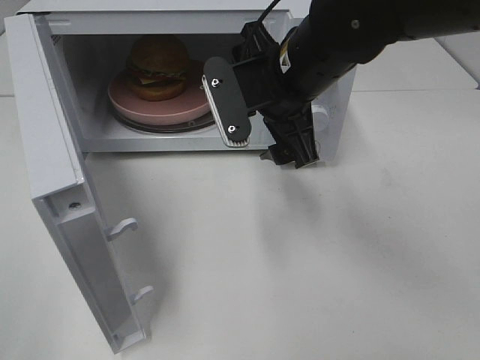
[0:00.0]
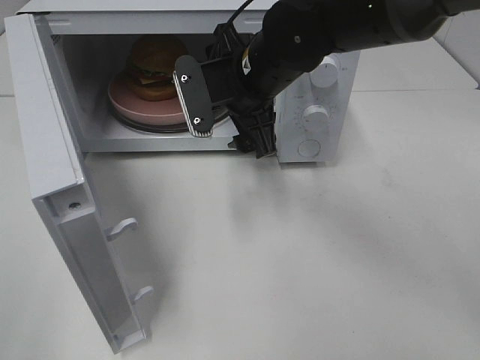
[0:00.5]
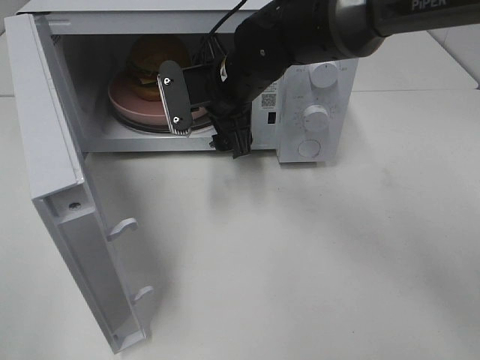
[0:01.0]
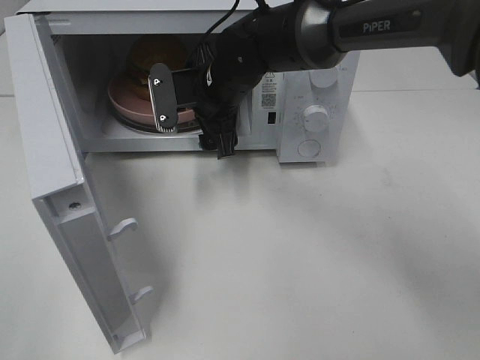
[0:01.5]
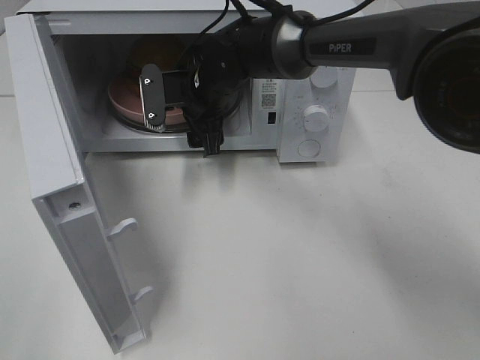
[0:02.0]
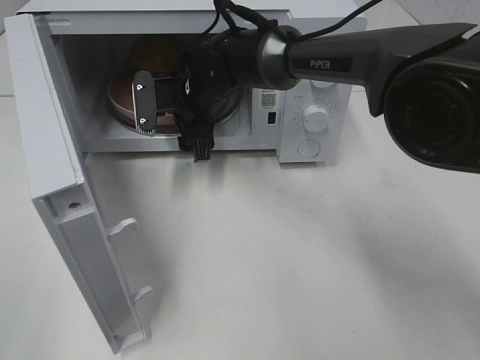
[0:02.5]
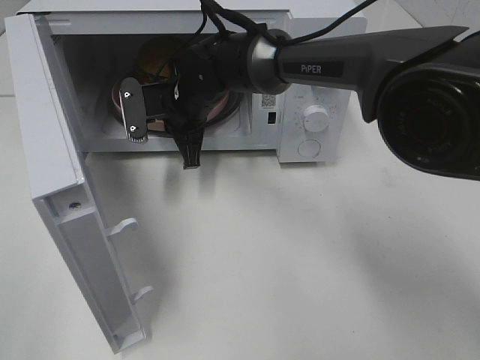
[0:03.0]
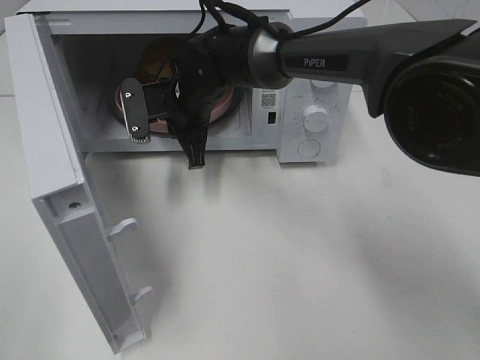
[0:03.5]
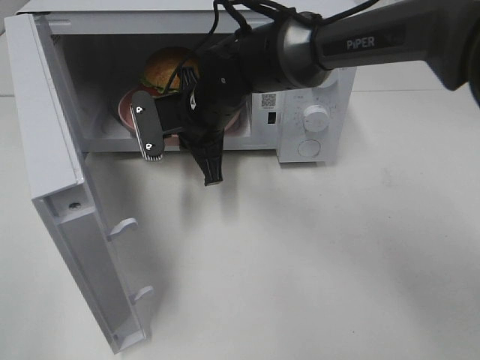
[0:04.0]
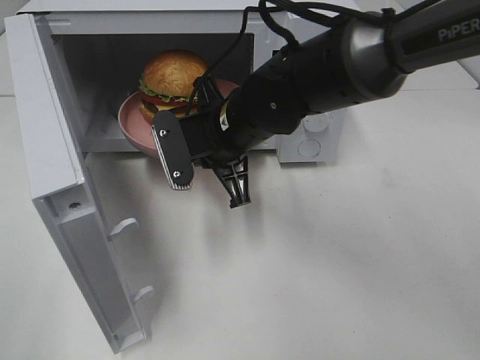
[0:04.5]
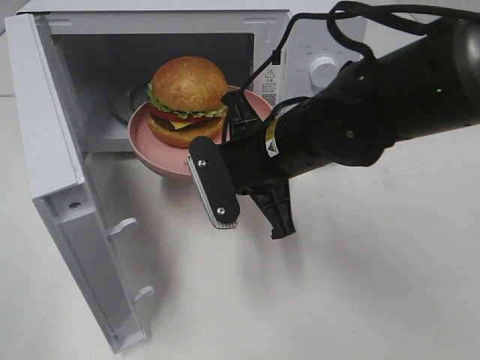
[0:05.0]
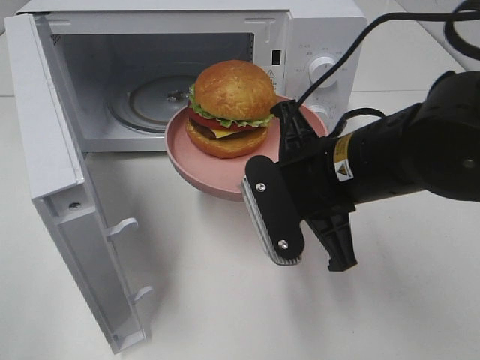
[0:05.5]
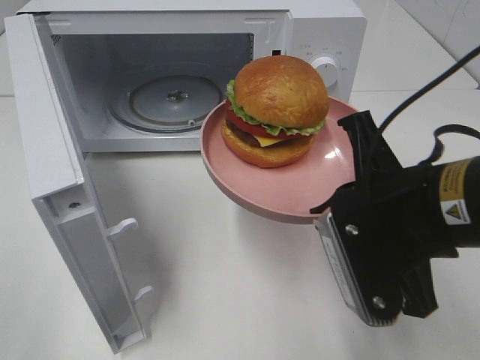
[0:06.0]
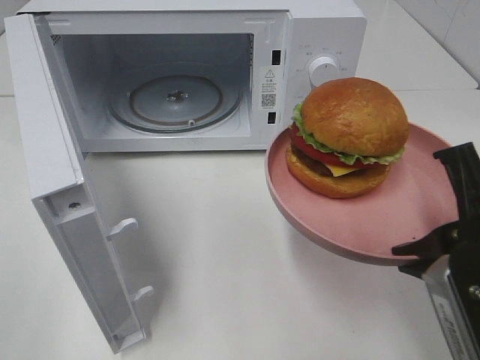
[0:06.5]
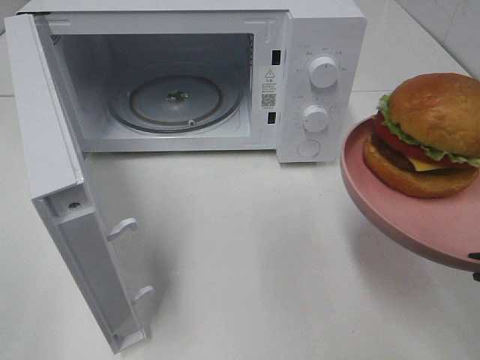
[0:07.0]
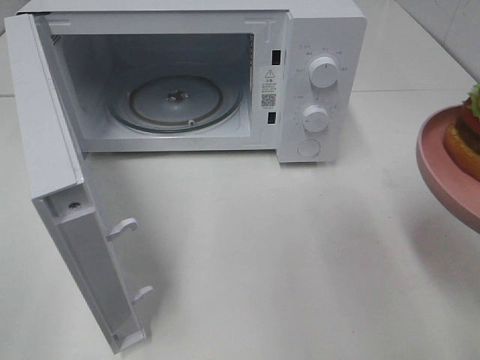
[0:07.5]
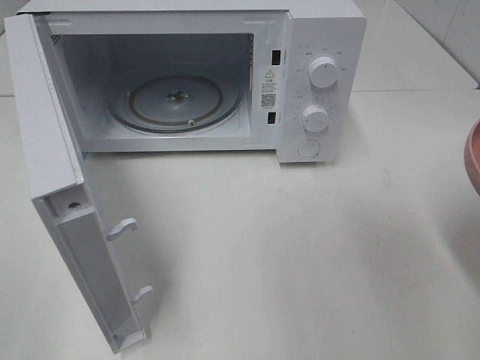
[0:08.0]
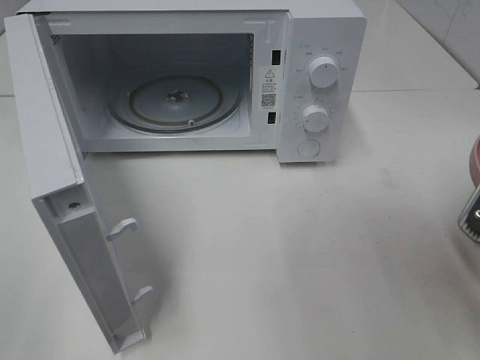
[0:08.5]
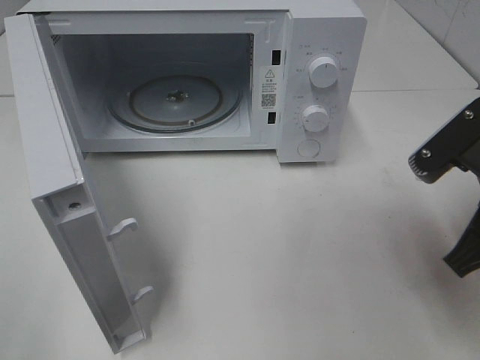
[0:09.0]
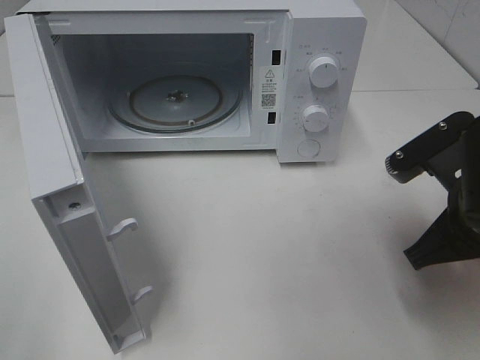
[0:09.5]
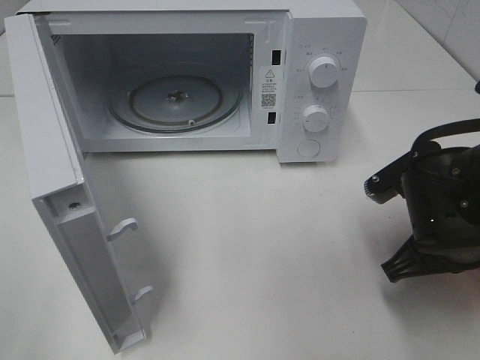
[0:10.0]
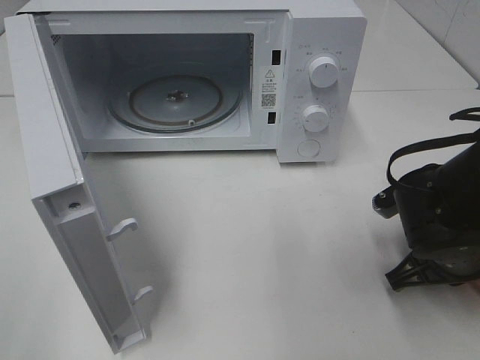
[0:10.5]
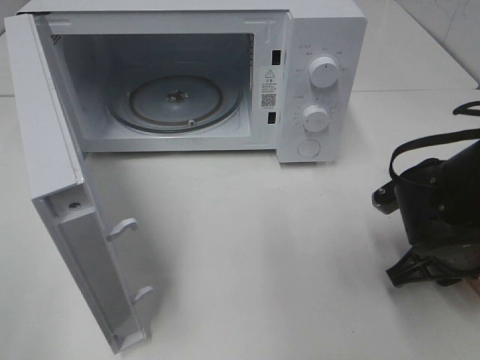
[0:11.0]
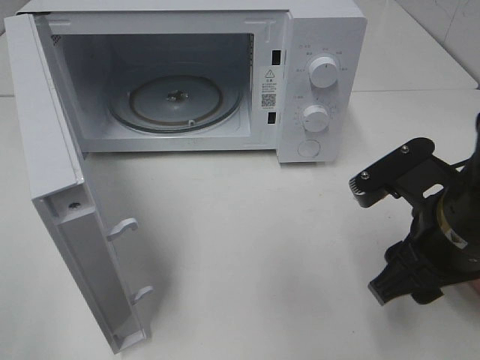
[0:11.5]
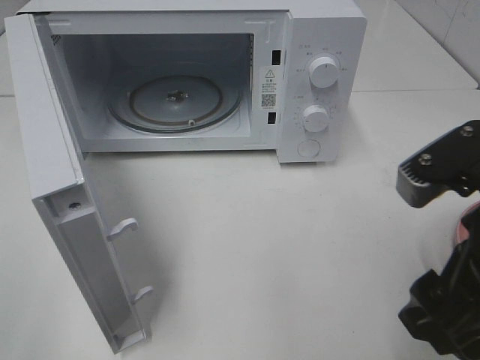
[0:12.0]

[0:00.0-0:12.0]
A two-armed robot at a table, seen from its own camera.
Task of the whole recording: Heat the burger.
Step, 0:00.0 to 0:03.0: Right hand: grab the plate with the hamburger.
Step, 0:03.5 to 0:11.0: Right hand: place the plate on the table.
0:00.0 to 0:02.0: The right gripper travels forward, to the left and downward by about 15 cm.
0:02.0 to 0:04.0: The right gripper goes about 5 cm backward, and closes its fingers.
0:04.0 to 0:06.0: The right gripper shifts approximately 30 cm backward and to the right.
0:06.0 to 0:08.0: The right gripper shifts approximately 15 cm to the right and backward.
0:08.0 to 0:10.0: The right gripper is displaced forward, downward and to the left by roughly 15 cm.
0:10.0 to 0:12.0: The right gripper heads upward and backward, covering approximately 15 cm, and opens up.

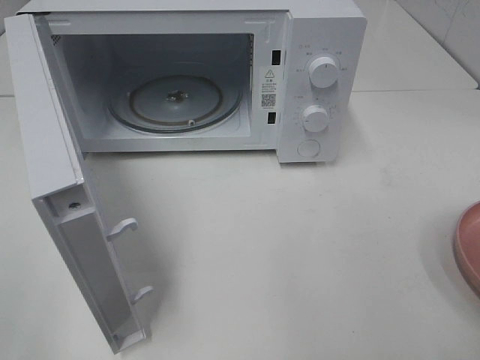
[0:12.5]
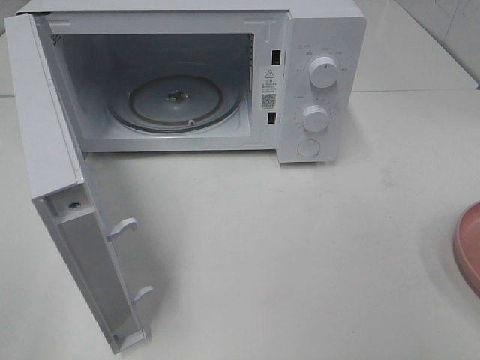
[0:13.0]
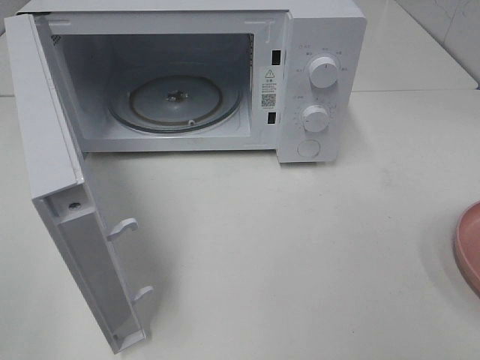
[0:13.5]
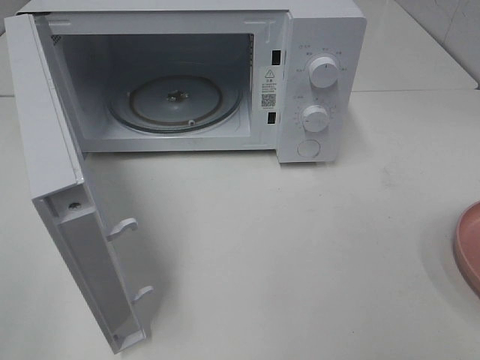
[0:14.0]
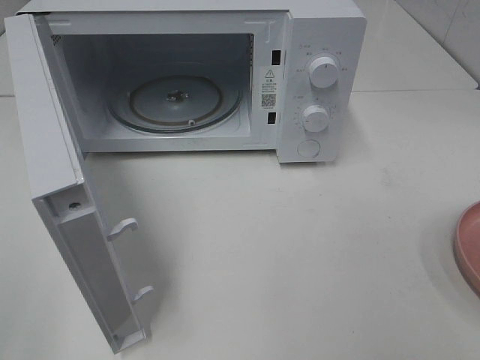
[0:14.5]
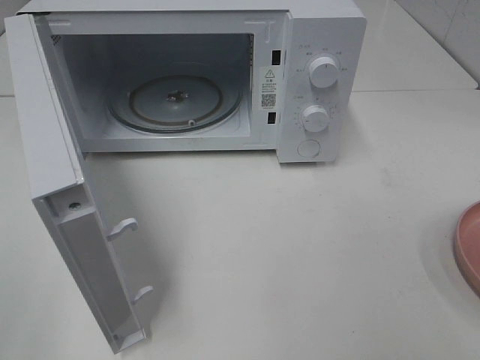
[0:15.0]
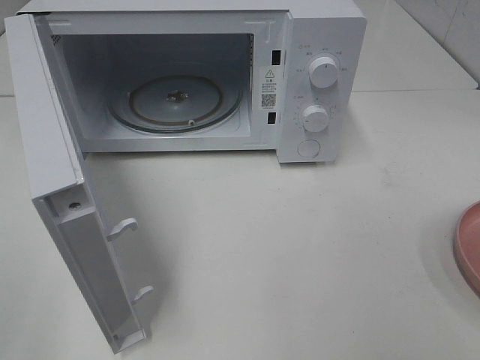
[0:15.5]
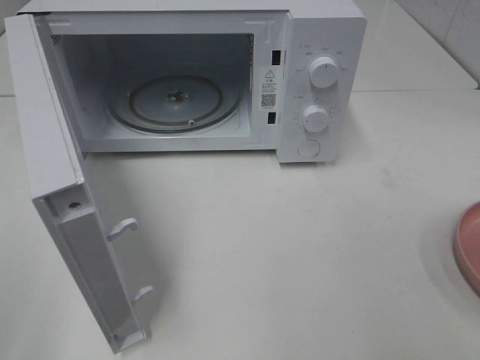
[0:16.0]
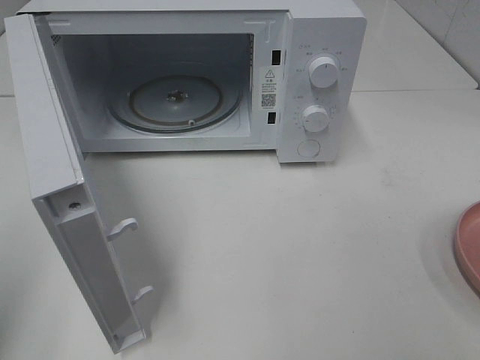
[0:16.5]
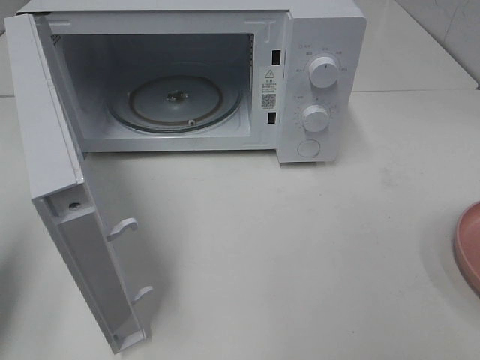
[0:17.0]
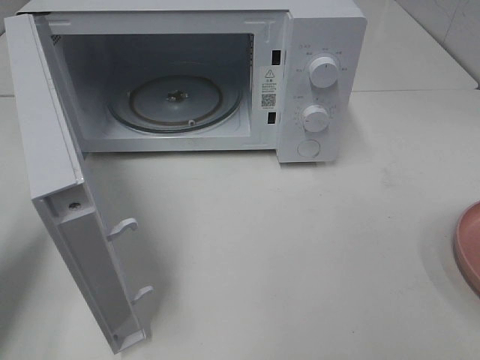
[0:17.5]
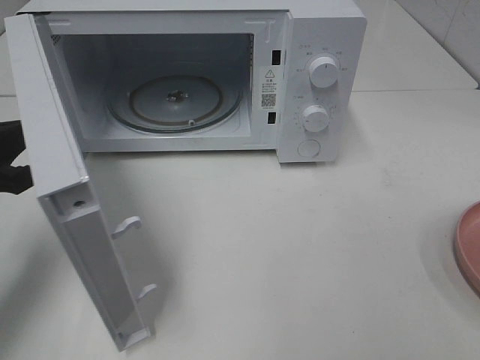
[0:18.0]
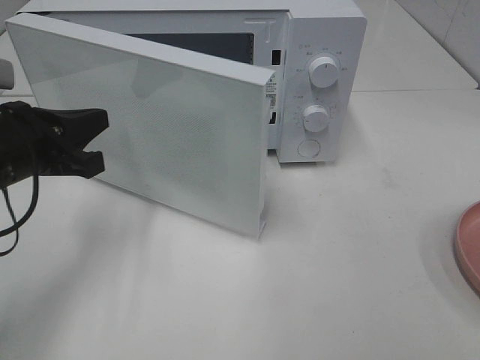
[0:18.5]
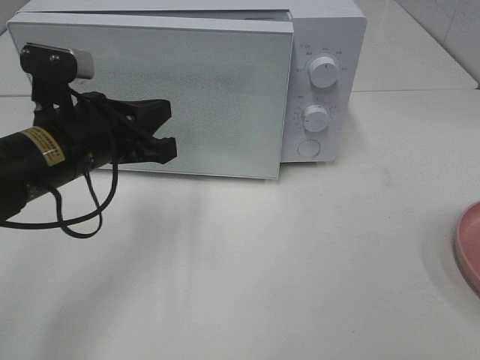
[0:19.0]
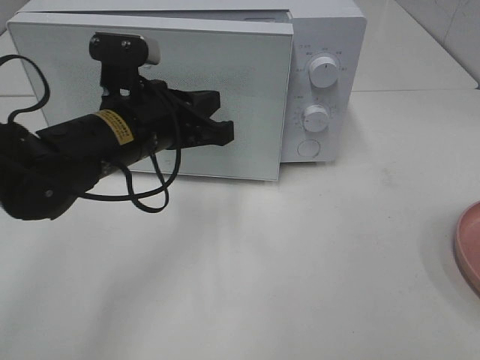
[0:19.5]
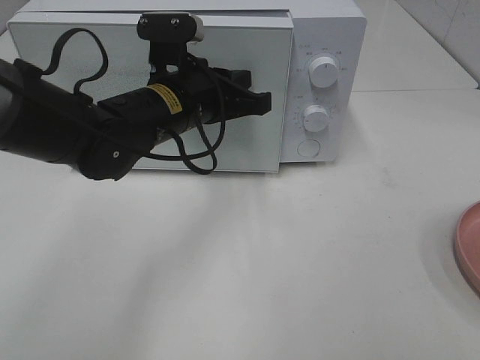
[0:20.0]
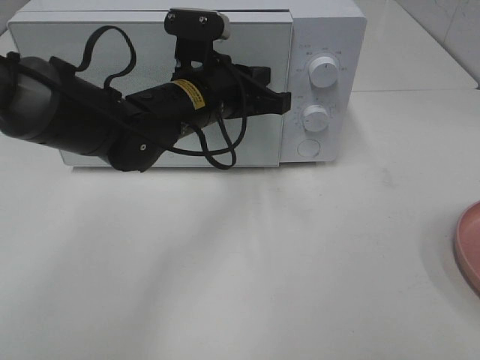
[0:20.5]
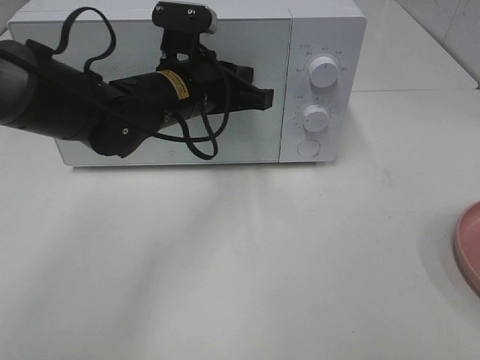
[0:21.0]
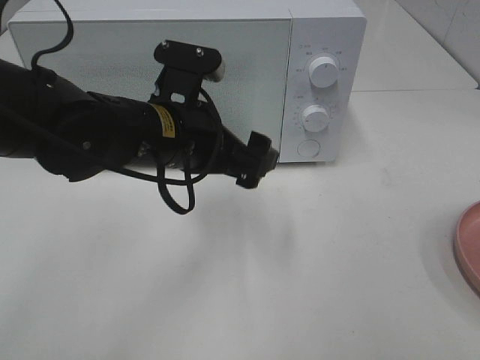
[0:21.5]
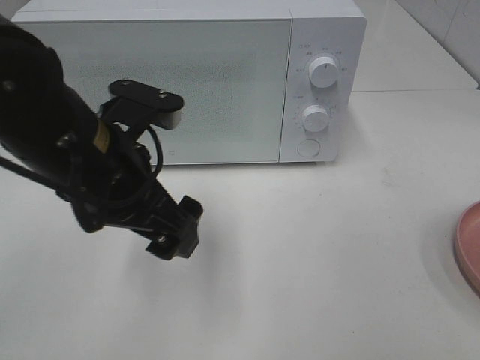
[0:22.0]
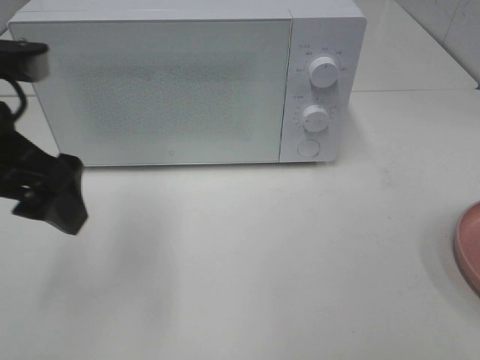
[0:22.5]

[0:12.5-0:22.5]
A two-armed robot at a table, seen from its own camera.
Task of the whole recording: Heat the burger.
Step, 0:12.5 to 0:21.0: Left hand: close the microwave door.
0:16.5 to 0:18.5: The left gripper heads forward, downward and to the right, covering some 25 cm.
0:18.5 to 0:20.5: The left gripper heads to the right and forward, covering some 20 cm.
0:20.5 to 0:22.5: The left gripper travels to the left, backward and upward by approximately 25 cm, and opens.

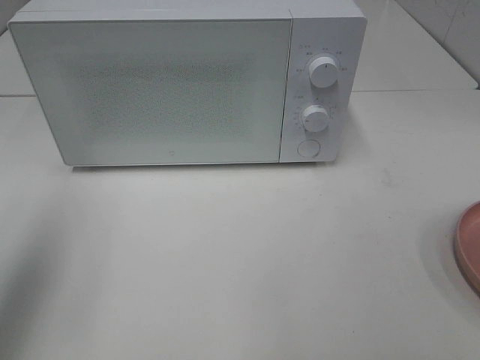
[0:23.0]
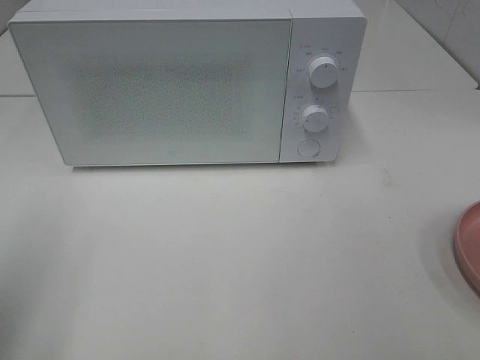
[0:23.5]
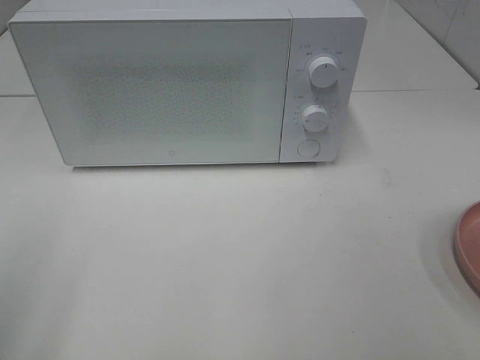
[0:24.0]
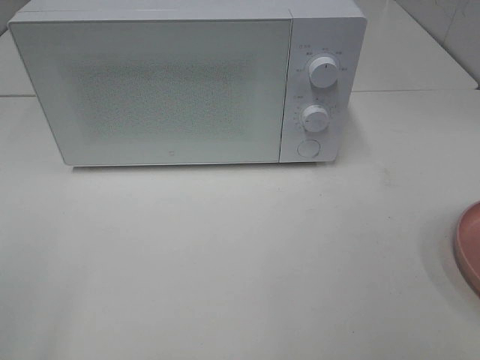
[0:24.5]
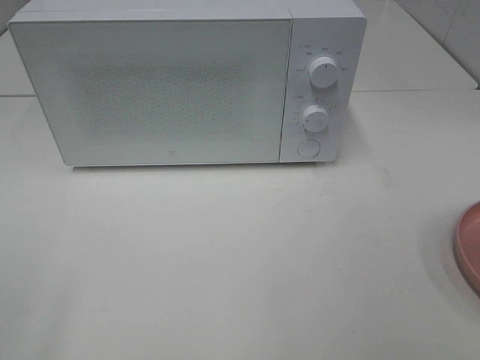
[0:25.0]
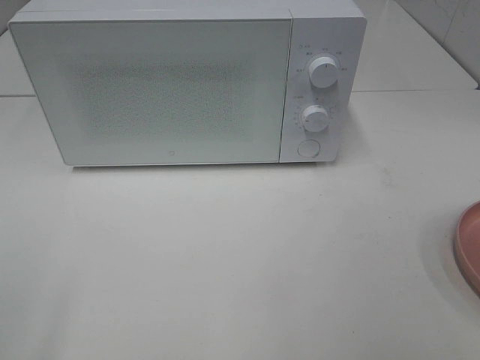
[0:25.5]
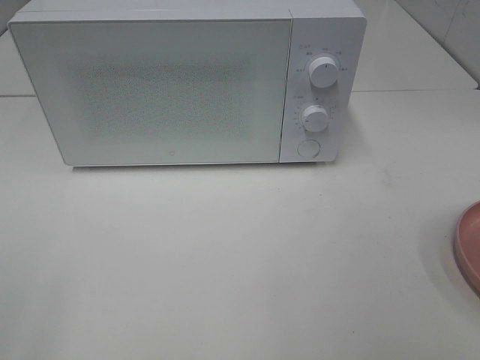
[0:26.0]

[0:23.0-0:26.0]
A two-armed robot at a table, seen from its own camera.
Task of the whole recording: Heat the burger.
0:23.0 to 0:24.5: The left gripper is displaced backward by approximately 15 cm.
